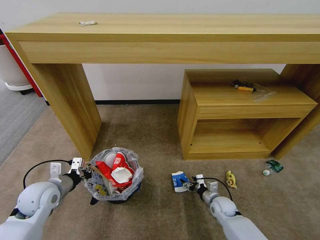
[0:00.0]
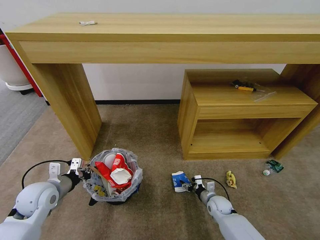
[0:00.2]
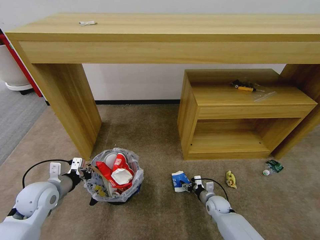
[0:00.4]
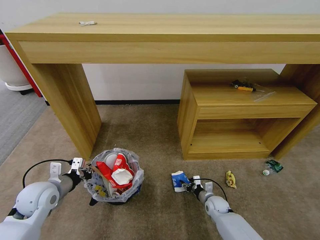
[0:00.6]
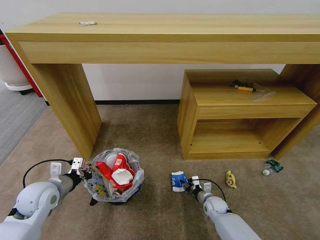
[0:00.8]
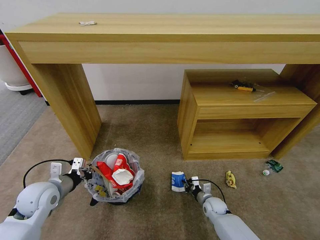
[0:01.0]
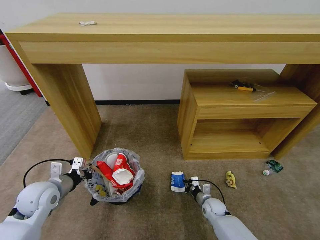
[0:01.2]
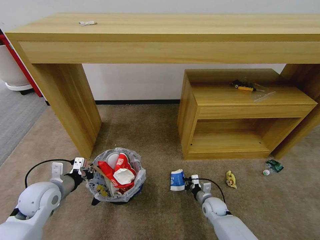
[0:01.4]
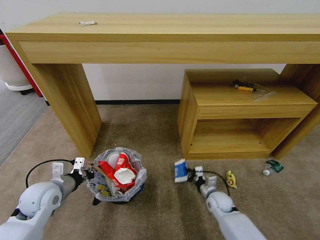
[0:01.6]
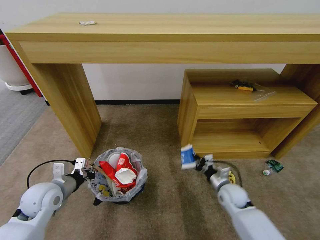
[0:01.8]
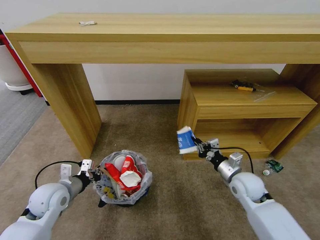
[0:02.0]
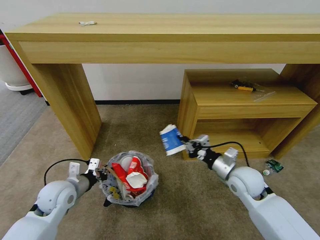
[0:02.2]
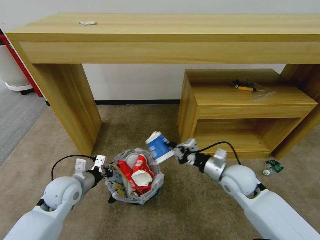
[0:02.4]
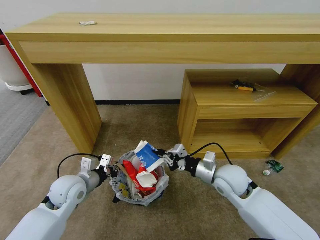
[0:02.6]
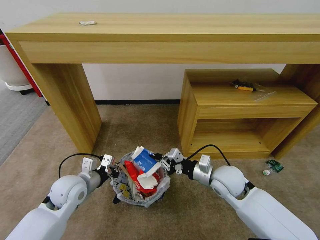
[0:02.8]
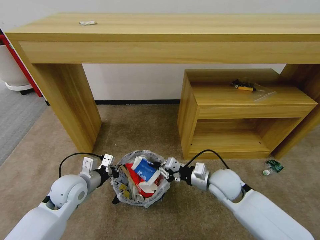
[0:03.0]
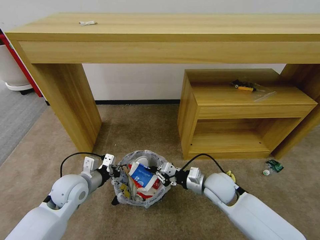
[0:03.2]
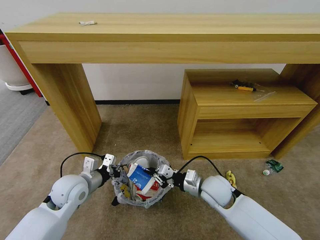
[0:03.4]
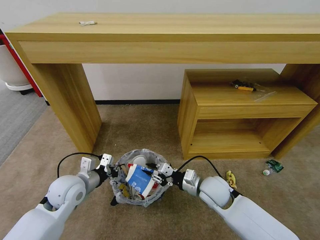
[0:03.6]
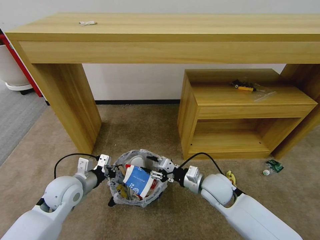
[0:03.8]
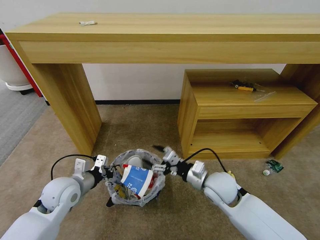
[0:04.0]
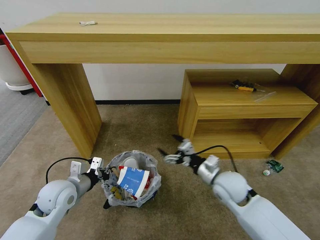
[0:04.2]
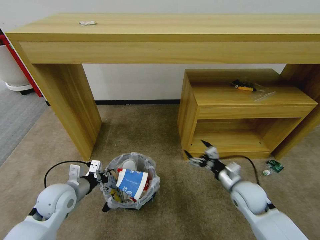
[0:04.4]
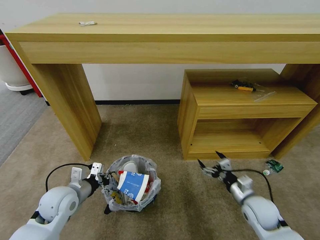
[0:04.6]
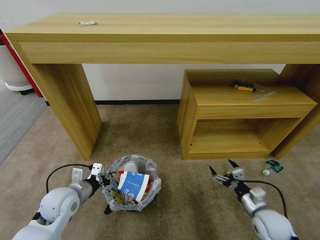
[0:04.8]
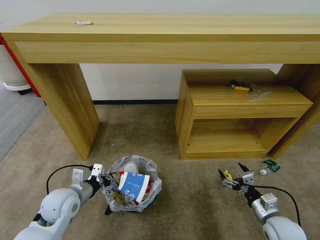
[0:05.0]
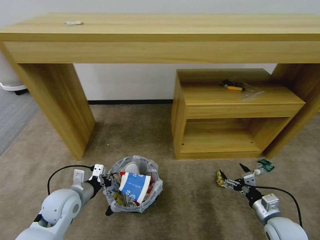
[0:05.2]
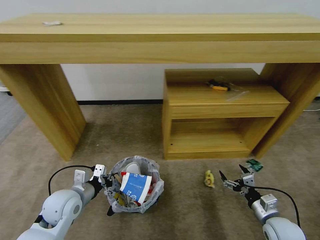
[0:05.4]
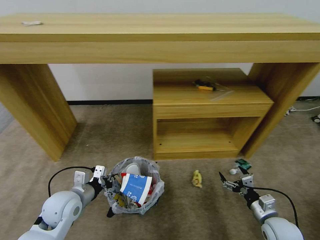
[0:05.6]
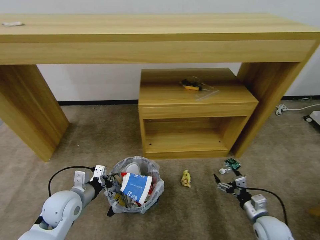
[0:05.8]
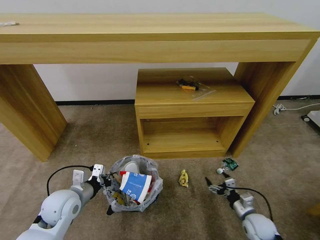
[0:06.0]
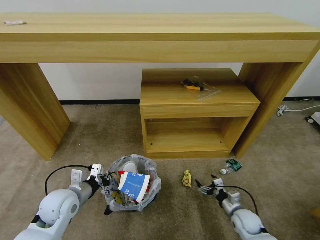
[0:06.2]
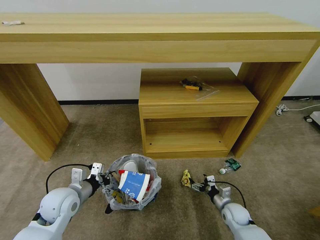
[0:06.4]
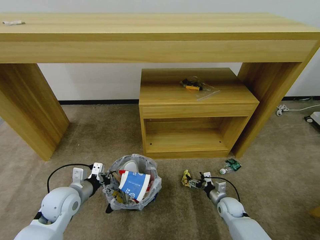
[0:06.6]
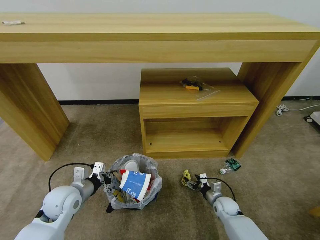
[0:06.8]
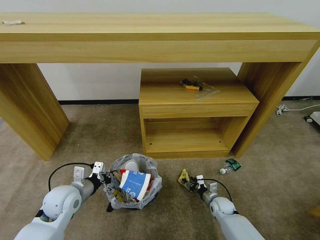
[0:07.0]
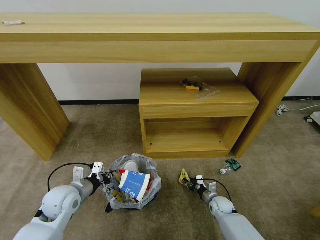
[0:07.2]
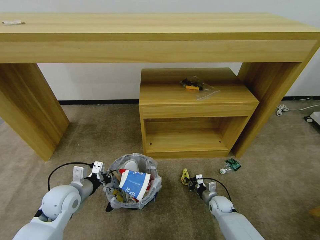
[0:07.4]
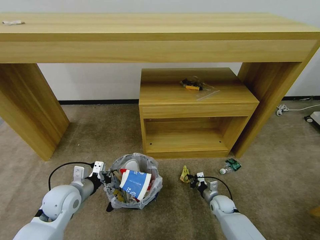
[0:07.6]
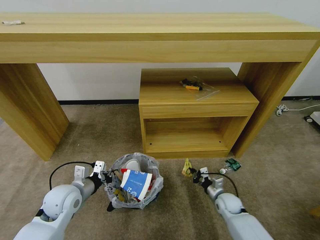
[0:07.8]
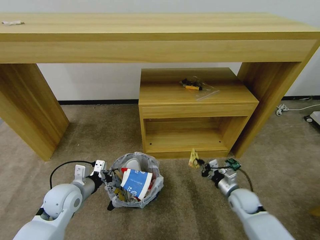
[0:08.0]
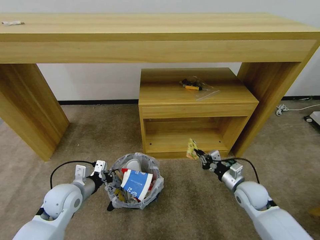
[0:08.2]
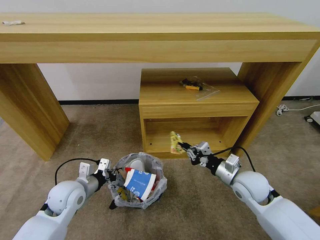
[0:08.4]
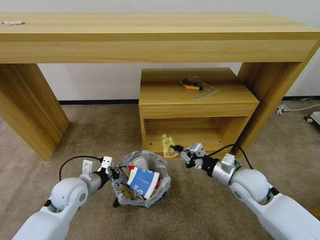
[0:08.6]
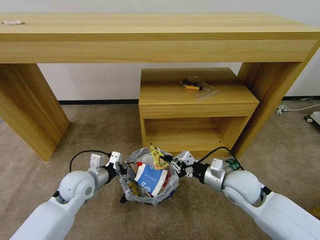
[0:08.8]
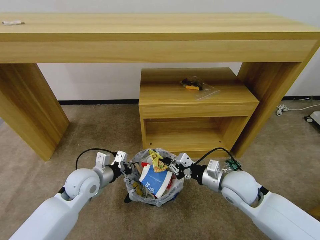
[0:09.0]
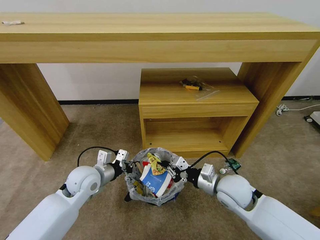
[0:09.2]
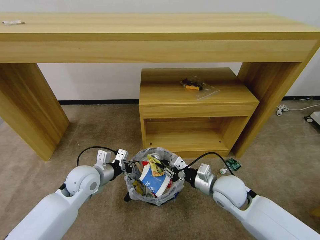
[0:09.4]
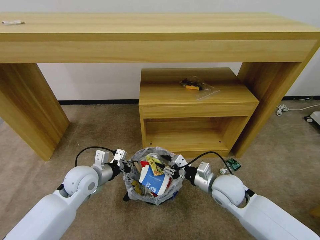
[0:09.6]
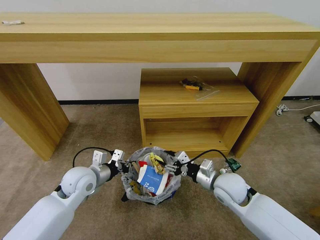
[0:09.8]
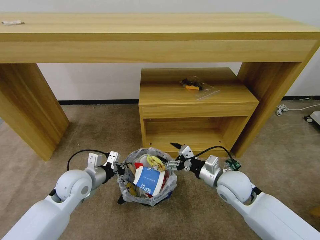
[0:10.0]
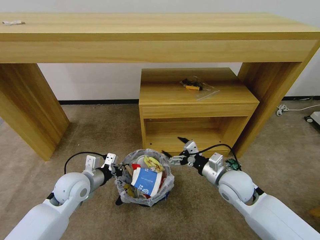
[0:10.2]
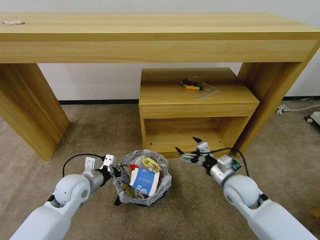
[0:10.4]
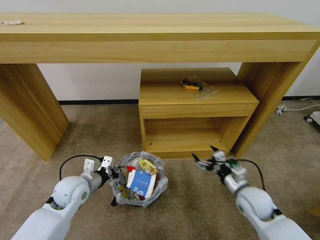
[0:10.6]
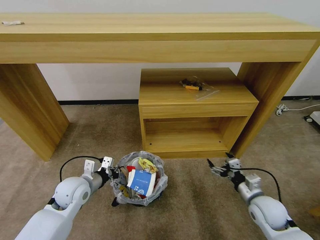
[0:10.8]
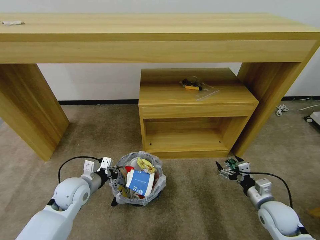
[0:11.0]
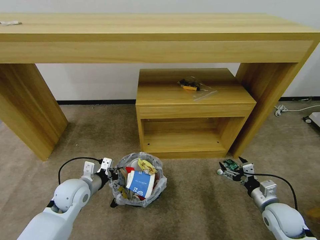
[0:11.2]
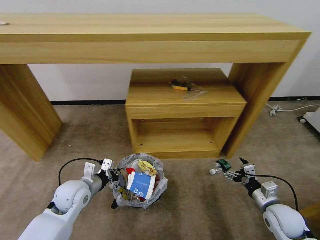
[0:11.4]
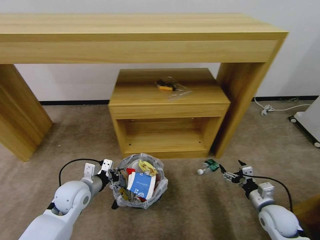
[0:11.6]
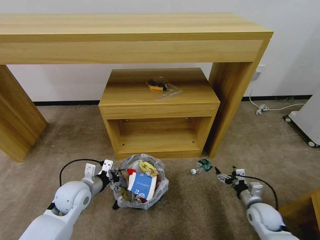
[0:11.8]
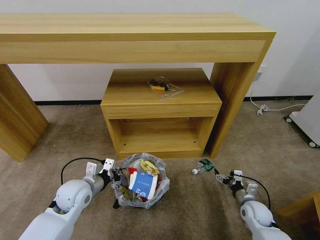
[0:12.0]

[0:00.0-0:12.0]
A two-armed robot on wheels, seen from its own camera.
Task of the whole recording: Pick up the trash bin and place the garbage on the floor into it.
0:00.0 to 0:01.6: The right gripper closes up.
0:01.6 to 0:03.0: The left gripper moves to the right, some 5 cm; the right gripper is displaced upward by approximately 20 cm.
0:03.0 to 0:04.4: The right gripper shifts about 5 cm to the right, and opens up.
0:04.4 to 0:06.0: The right gripper is displaced downward, to the right and backward by some 20 cm.
0:06.0 to 0:07.6: The right gripper is displaced forward, to the left and downward by roughly 15 cm, and closes.
0:07.6 to 0:09.0: The left gripper goes roughly 5 cm to the right; the right gripper travels upward by about 30 cm.
0:09.0 to 0:10.4: The right gripper opens its fingers.
0:10.4 to 0:12.0: The right gripper shifts some 20 cm downward and to the right.

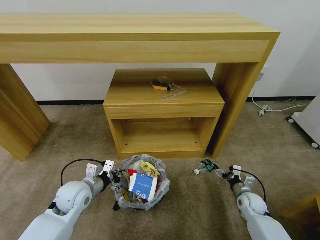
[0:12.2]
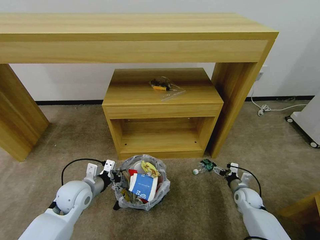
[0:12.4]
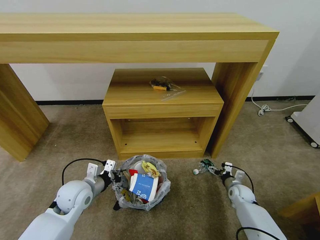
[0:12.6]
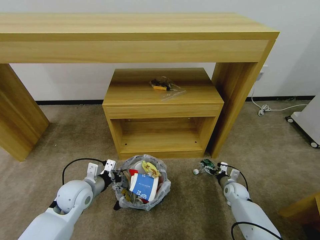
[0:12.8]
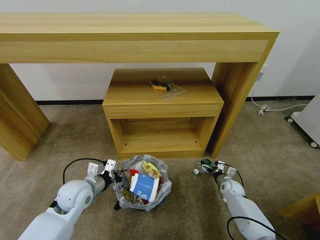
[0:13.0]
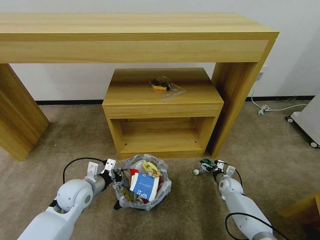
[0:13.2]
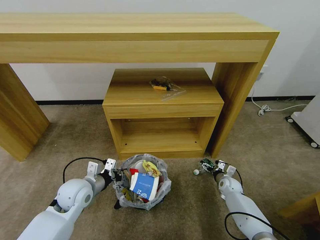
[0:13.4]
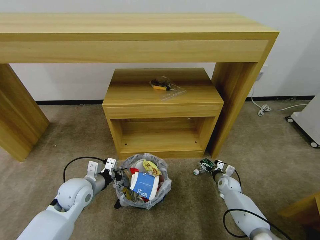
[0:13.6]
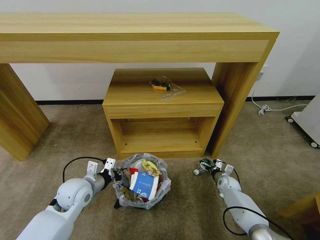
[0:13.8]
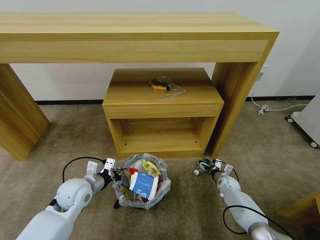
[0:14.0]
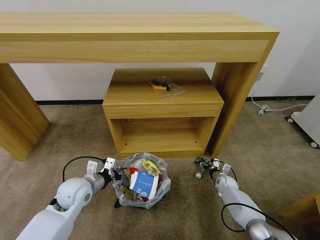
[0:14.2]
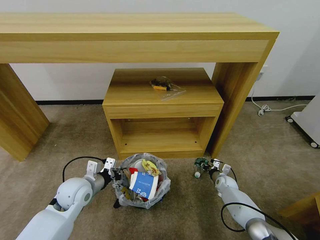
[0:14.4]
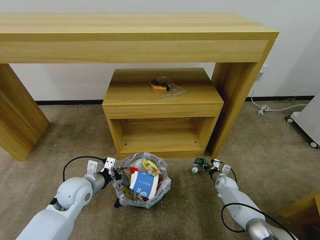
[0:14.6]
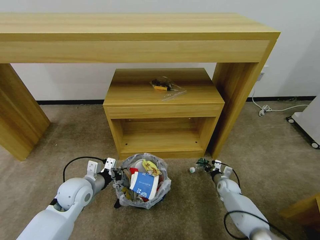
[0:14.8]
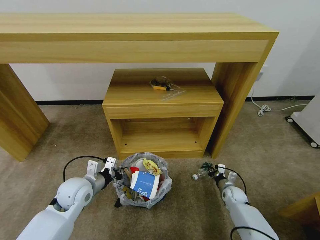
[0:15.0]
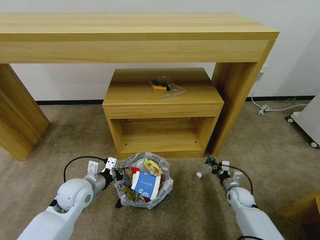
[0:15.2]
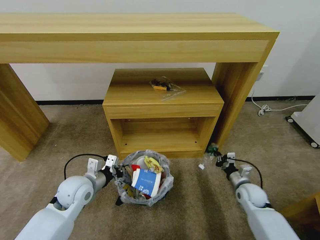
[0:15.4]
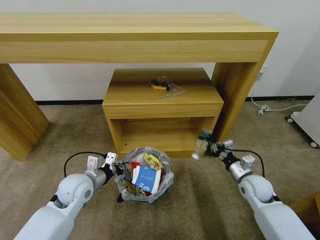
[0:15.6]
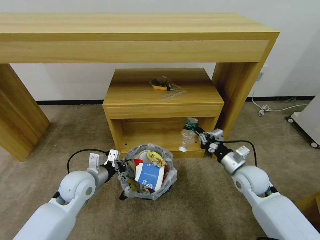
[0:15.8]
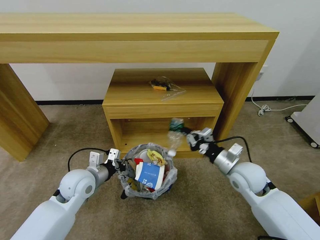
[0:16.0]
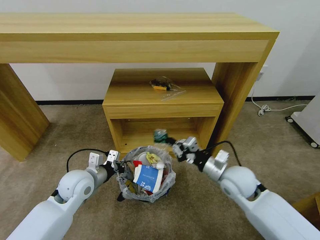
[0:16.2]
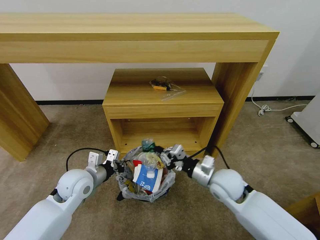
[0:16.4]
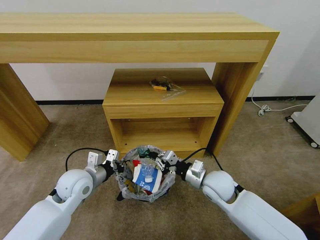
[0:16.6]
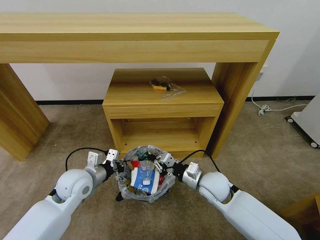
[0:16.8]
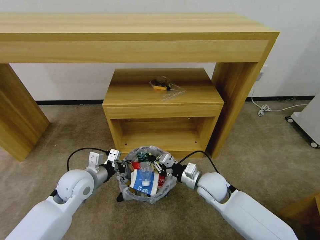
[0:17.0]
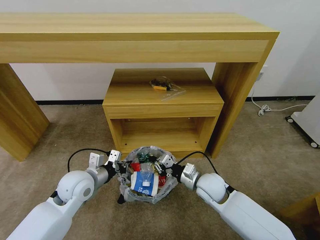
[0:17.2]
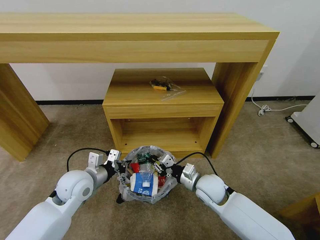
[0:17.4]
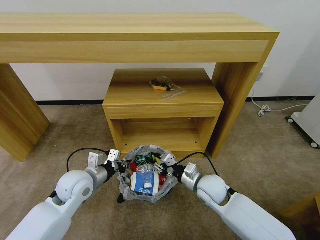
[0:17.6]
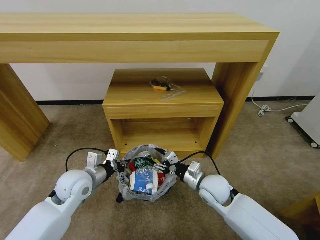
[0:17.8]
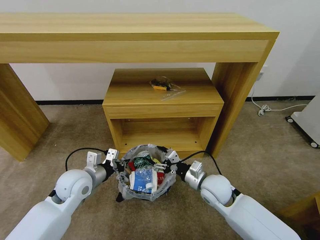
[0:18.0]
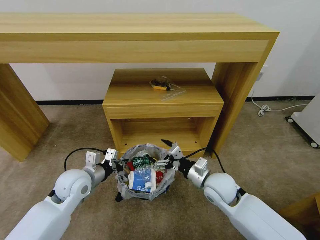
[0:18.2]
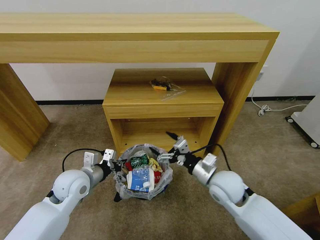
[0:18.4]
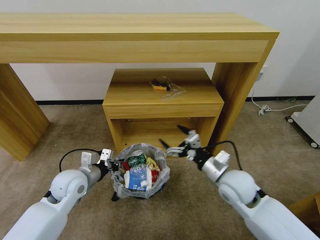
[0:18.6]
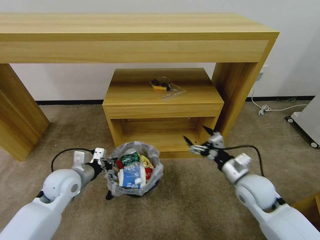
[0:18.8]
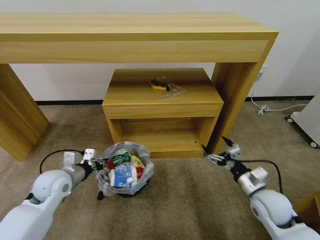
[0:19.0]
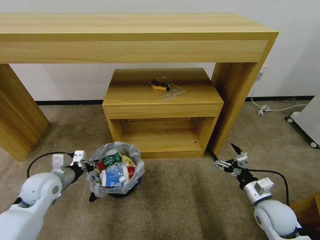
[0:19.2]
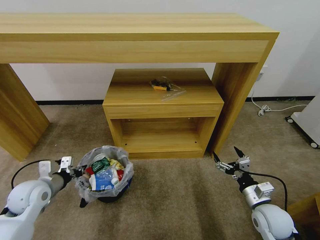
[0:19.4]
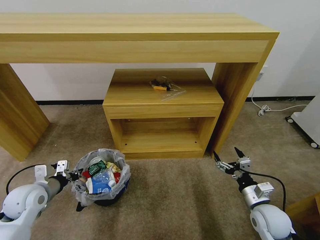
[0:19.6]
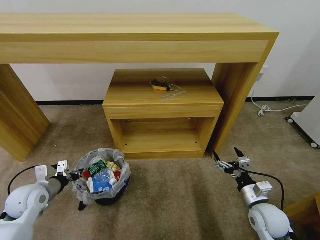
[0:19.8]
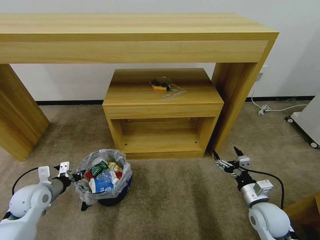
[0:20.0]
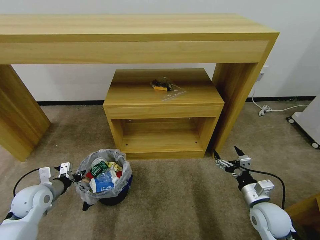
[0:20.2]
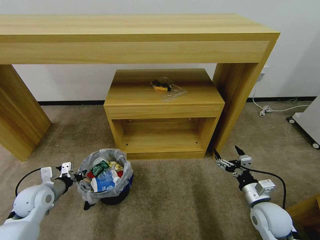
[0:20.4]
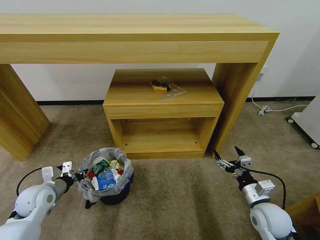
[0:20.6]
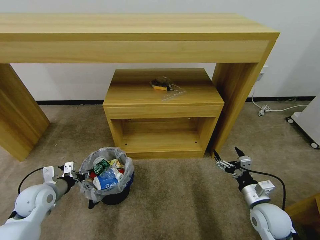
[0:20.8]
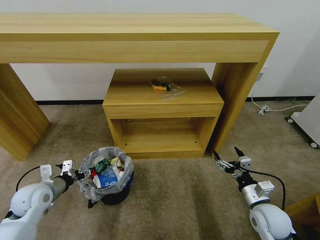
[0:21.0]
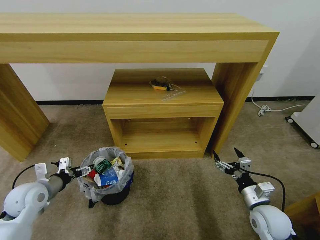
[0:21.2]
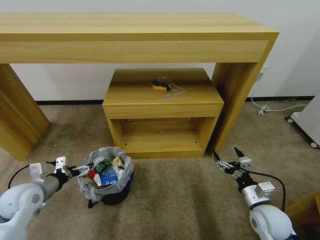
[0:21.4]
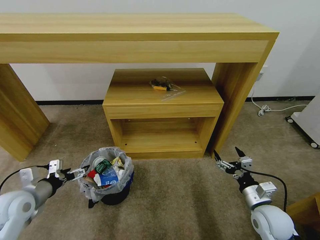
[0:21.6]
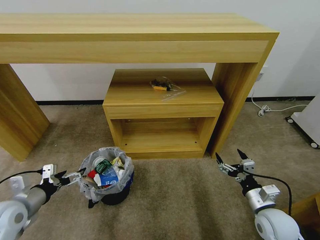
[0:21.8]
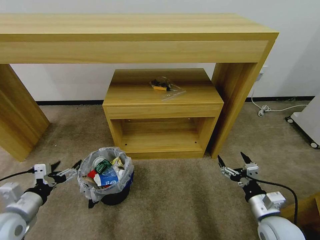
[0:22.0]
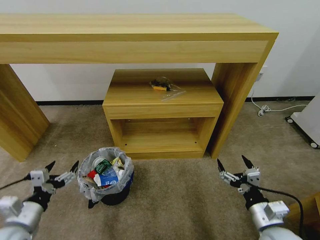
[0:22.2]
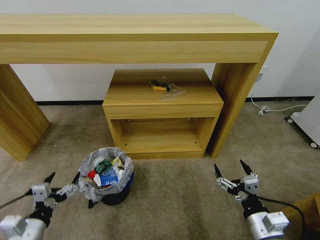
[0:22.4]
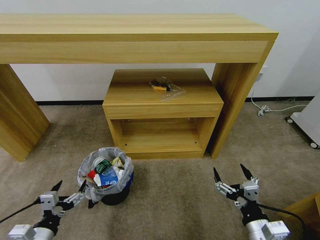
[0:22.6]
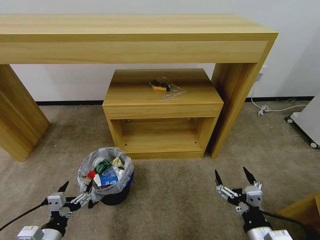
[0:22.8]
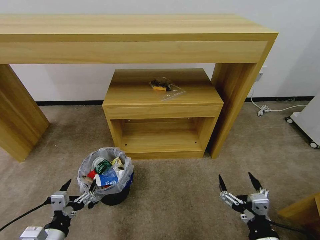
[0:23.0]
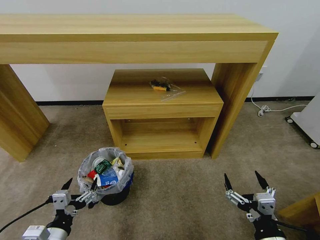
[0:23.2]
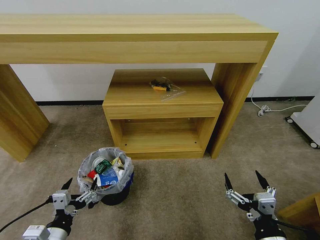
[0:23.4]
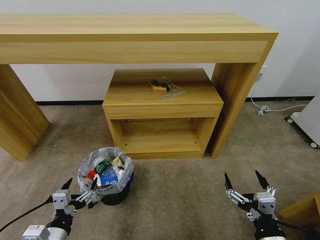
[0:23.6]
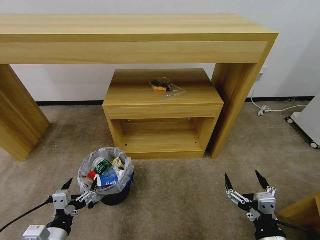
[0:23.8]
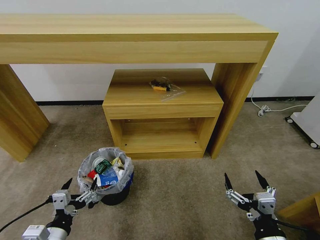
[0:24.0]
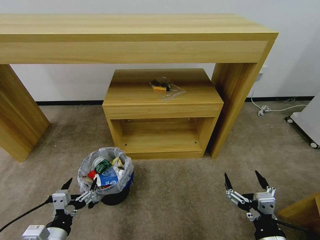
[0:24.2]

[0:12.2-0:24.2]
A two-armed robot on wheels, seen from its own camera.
Task of the whole recording: Pick up the trash bin and place the garbage on the floor into it.
0:12.2 to 0:13.8: The right gripper heads forward and downward, covering about 10 cm.
0:13.8 to 0:15.2: The right gripper travels backward by some 5 cm, and closes up.
0:15.2 to 0:16.6: The right gripper moves upward and to the left, approximately 25 cm.
0:16.6 to 0:18.2: The right gripper opens.
0:18.2 to 0:19.8: The right gripper is displaced to the right, backward and downward by about 15 cm. The left gripper is displaced to the left by some 15 cm.
0:19.8 to 0:21.2: The left gripper opens up.
0:21.2 to 0:22.6: The right gripper travels backward and to the left by approximately 15 cm, while the left gripper goes roughly 15 cm backward.
0:22.6 to 0:24.2: The left gripper ends up some 5 cm from where it was.
